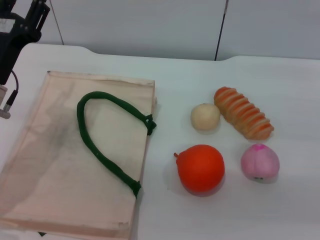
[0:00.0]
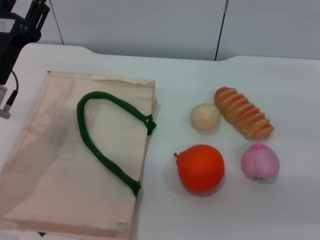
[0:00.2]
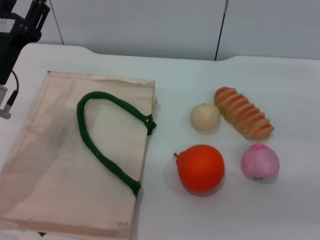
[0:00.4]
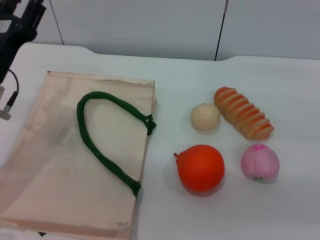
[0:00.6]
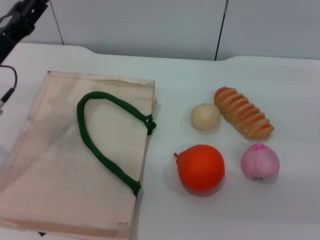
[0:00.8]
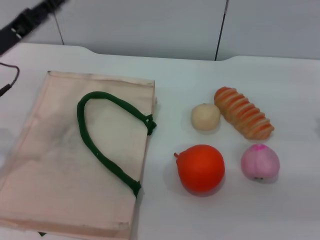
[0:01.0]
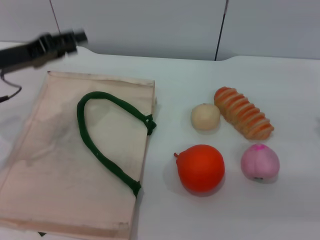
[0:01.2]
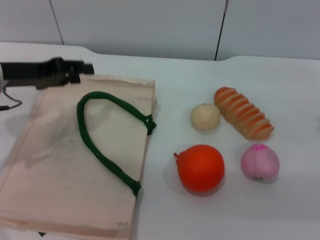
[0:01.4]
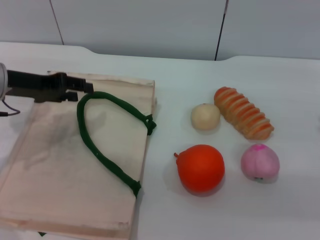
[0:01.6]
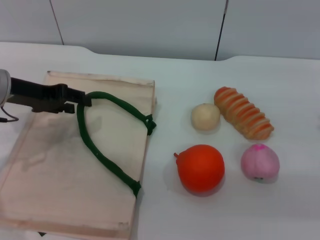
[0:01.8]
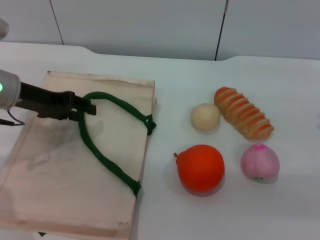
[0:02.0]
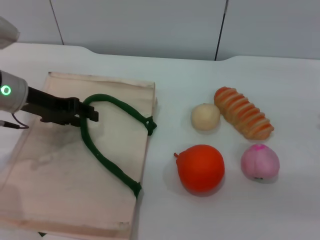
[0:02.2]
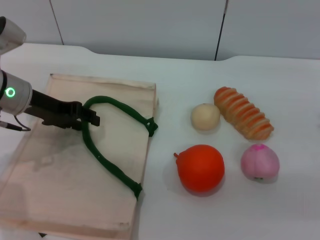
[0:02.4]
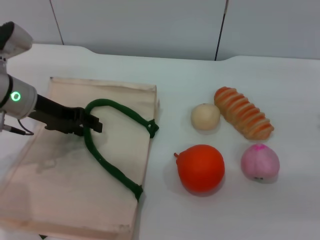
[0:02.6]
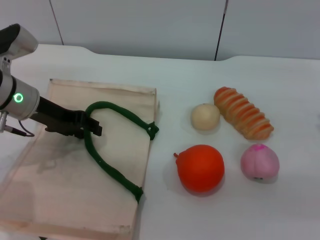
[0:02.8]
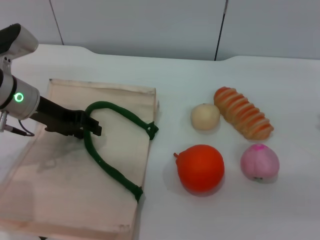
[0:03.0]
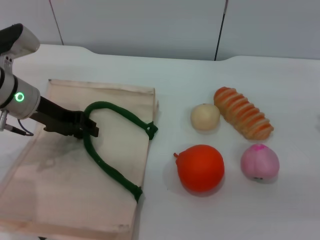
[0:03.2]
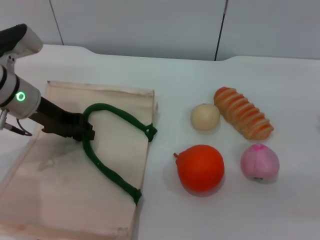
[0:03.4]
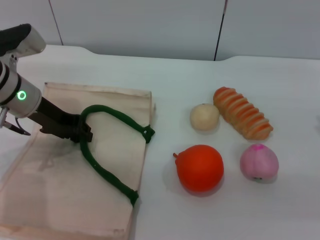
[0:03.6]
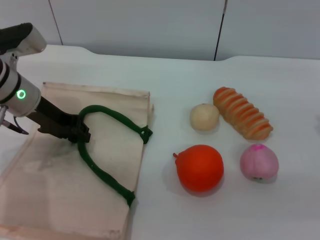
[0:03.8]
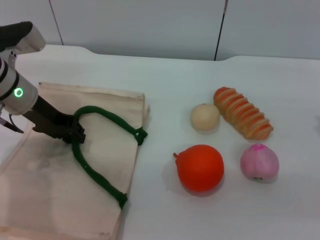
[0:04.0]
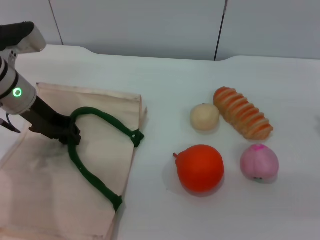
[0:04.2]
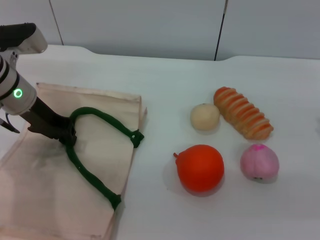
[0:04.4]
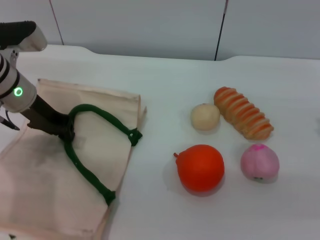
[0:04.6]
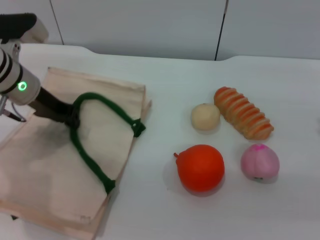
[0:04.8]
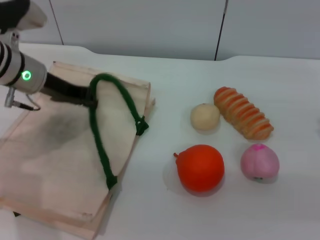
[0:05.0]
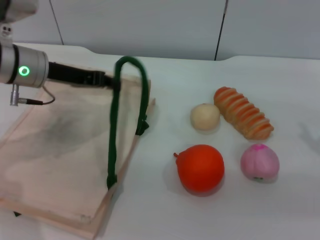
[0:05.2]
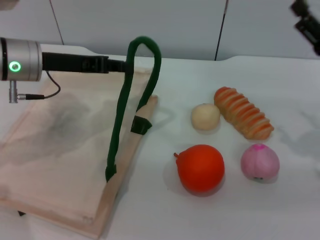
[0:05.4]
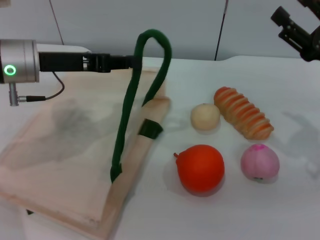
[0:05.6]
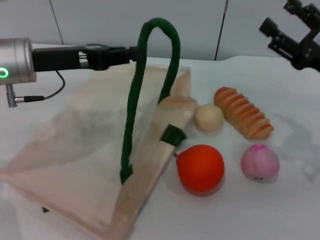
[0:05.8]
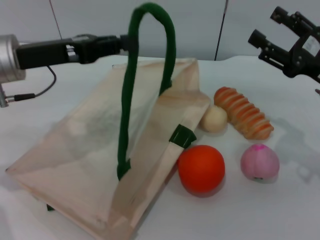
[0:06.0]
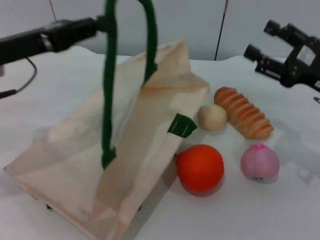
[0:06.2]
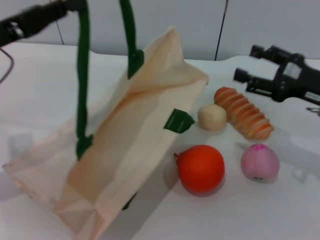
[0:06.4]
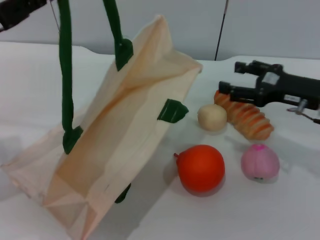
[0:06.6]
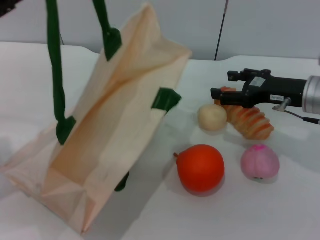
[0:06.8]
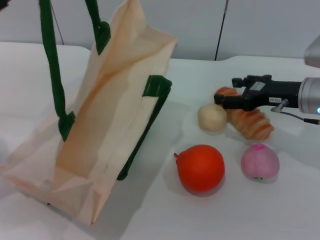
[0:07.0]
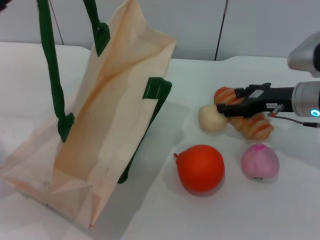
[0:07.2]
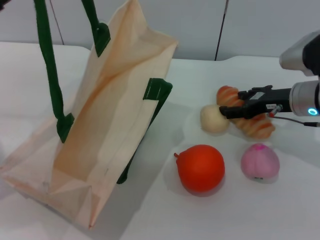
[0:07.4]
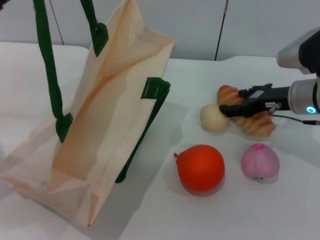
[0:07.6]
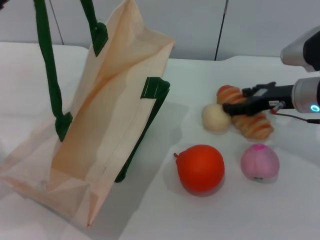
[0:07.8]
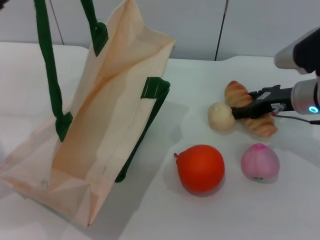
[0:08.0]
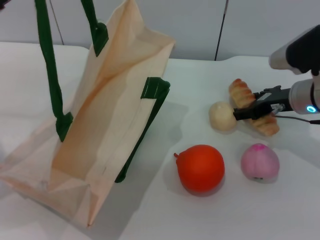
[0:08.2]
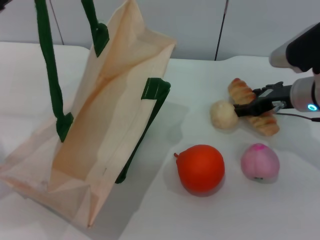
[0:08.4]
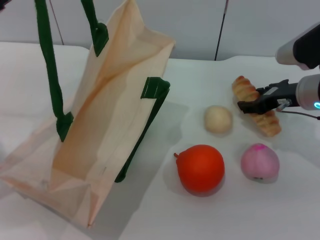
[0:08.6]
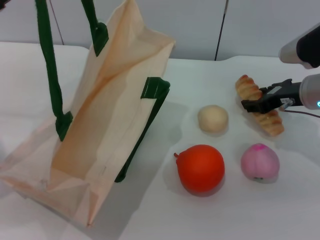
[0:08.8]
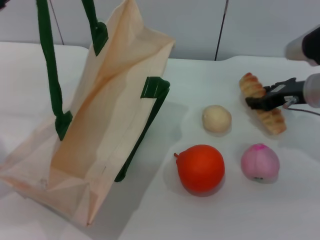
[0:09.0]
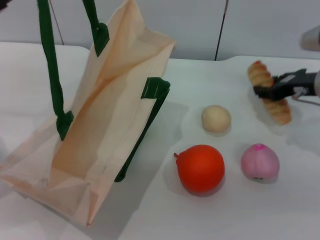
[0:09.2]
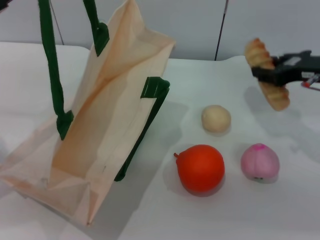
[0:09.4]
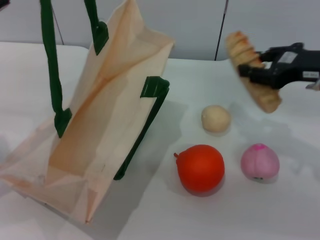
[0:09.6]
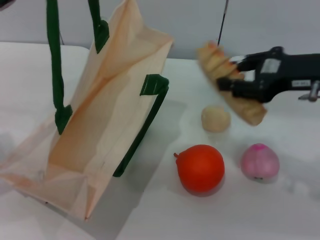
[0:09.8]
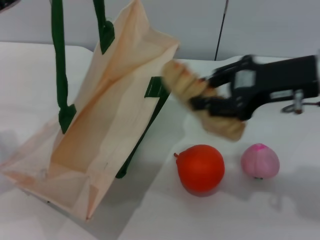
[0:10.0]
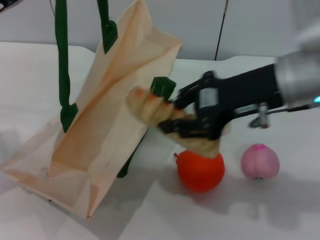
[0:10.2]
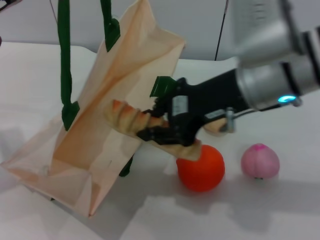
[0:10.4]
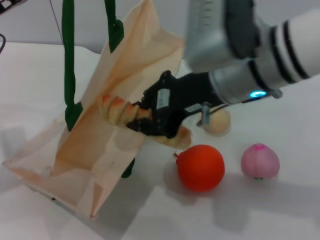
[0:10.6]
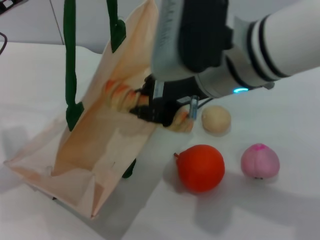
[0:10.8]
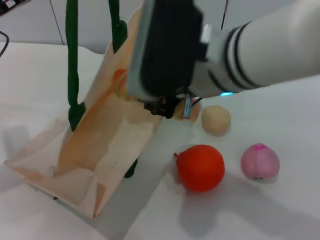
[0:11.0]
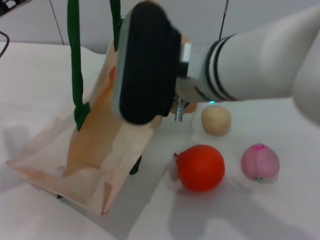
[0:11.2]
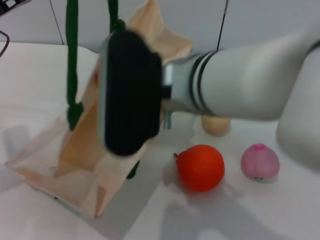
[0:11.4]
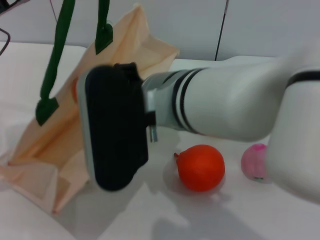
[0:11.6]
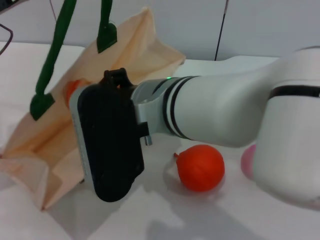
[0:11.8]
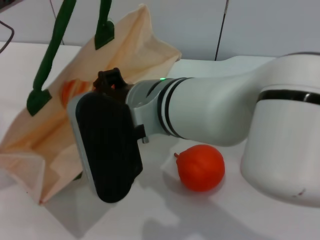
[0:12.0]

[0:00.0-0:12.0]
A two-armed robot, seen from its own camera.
Task of the whole recording: pick up the bread and egg yolk pastry from the table and place it in the white handbag.
Step, 0:00.0 to 0:04.8: Lift the woven bag with the left gripper to open it.
Step, 0:05.0 to 0:09.4: Pick up the bread with the right gripper.
0:00.0 to 0:01.6: The left gripper moves forward, some 5 cm.
0:03.0 to 0:04.4: The left gripper closes its fingers.
0:04.4 to 0:06.0: The left gripper shifts by approximately 5 cm.
0:06.0 to 0:07.6: The left gripper is displaced to the left by roughly 10 cm. Meanwhile the right gripper travels forward by roughly 5 cm.
0:07.6 to 0:09.0: The grippers make only small movements.
0:09.0 to 0:10.4: The right gripper travels to the left, upward and backward by roughly 20 cm, and closes.
0:10.4 to 0:12.0: The right gripper is displaced to the left by about 10 cm.

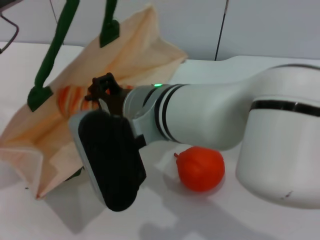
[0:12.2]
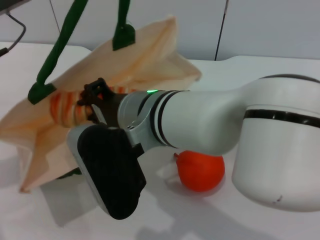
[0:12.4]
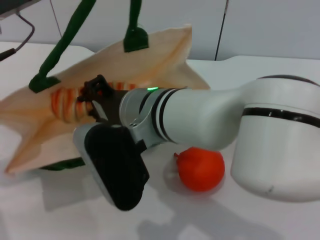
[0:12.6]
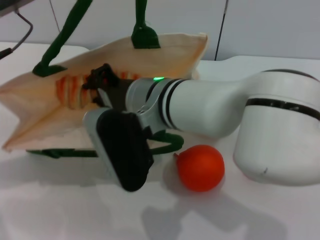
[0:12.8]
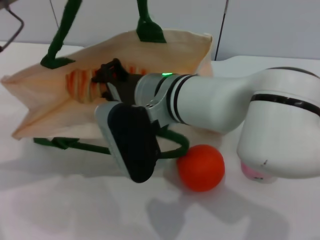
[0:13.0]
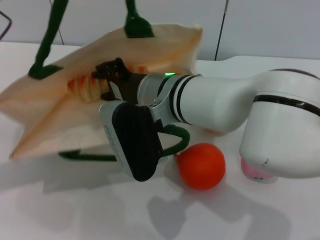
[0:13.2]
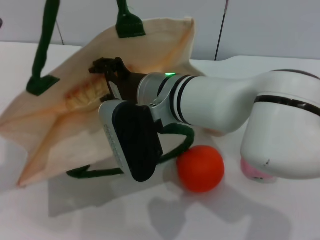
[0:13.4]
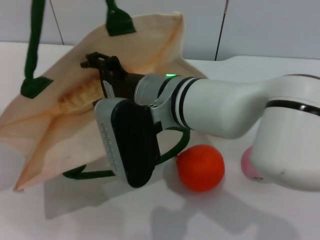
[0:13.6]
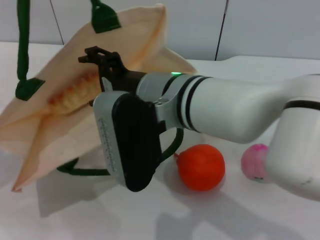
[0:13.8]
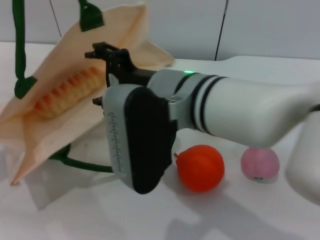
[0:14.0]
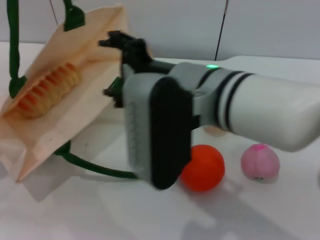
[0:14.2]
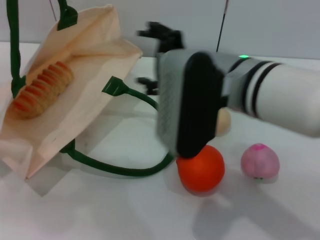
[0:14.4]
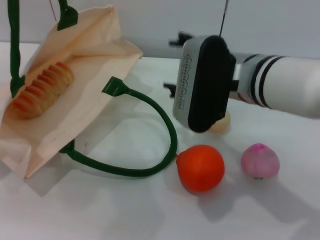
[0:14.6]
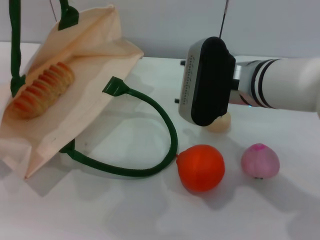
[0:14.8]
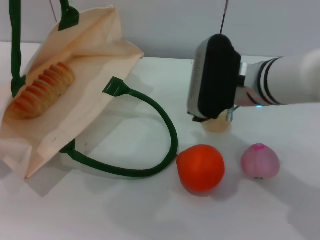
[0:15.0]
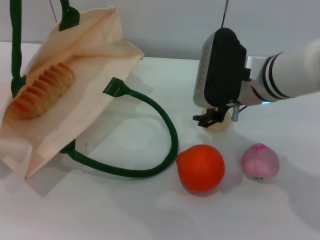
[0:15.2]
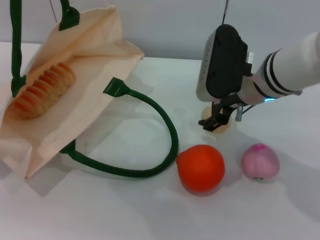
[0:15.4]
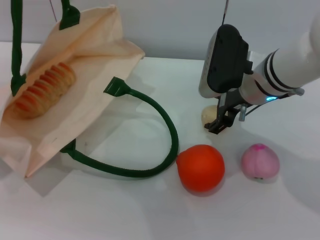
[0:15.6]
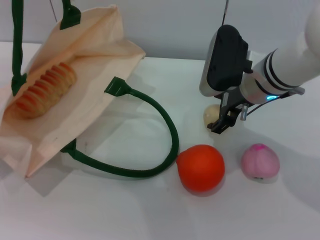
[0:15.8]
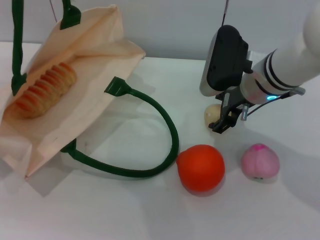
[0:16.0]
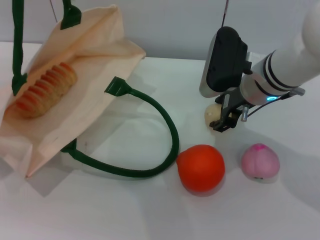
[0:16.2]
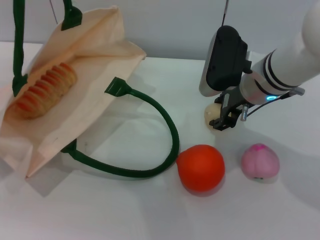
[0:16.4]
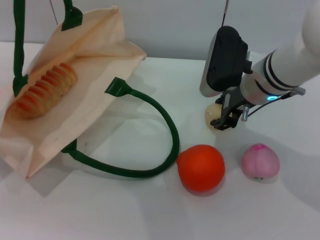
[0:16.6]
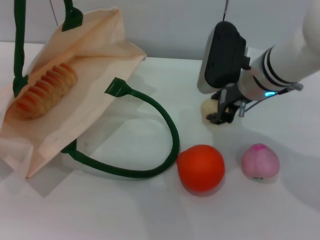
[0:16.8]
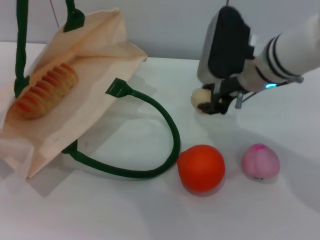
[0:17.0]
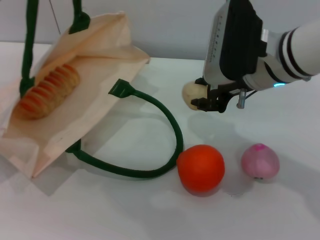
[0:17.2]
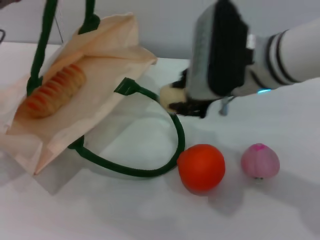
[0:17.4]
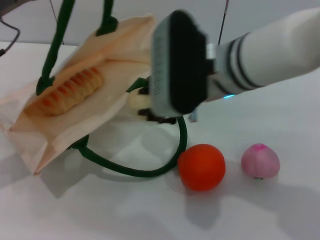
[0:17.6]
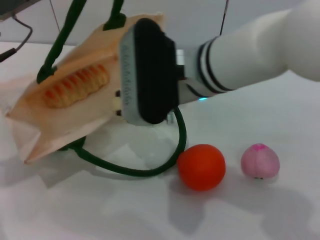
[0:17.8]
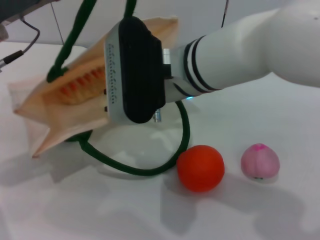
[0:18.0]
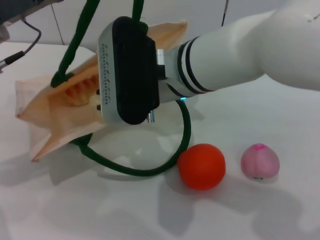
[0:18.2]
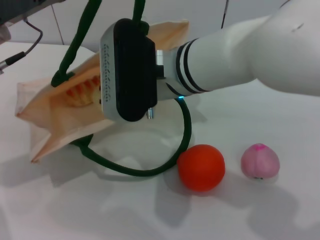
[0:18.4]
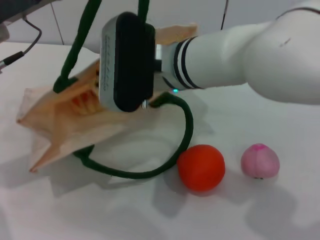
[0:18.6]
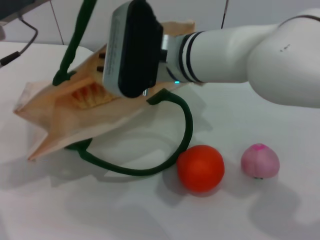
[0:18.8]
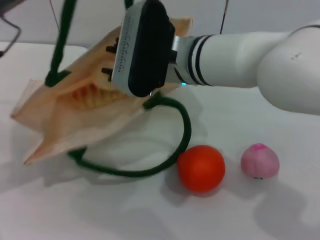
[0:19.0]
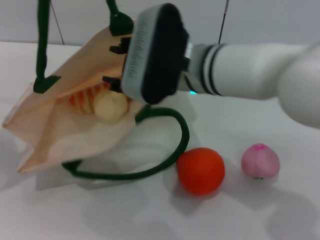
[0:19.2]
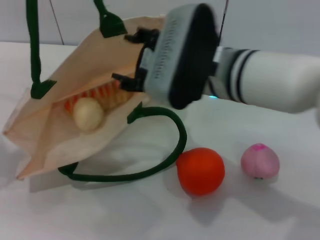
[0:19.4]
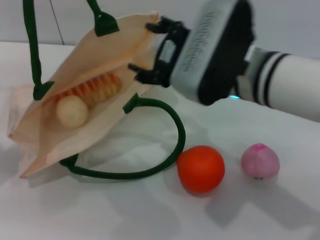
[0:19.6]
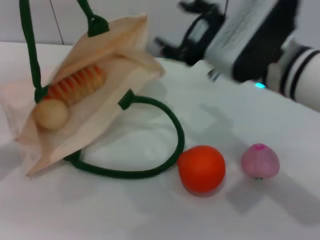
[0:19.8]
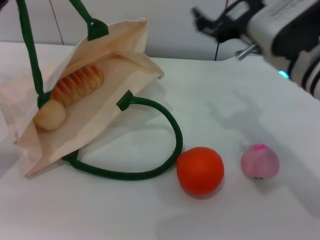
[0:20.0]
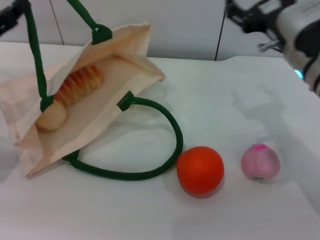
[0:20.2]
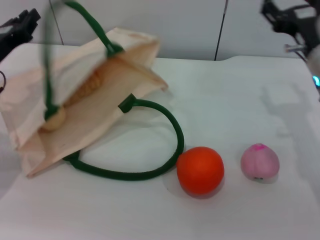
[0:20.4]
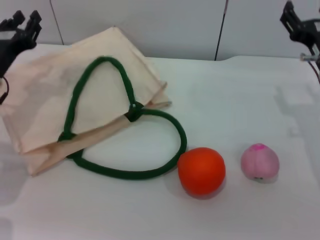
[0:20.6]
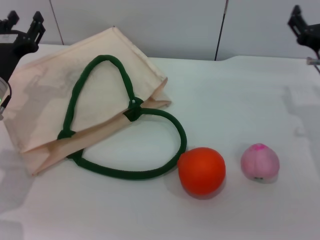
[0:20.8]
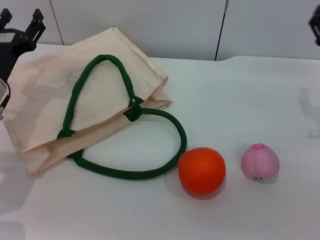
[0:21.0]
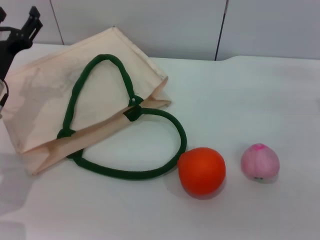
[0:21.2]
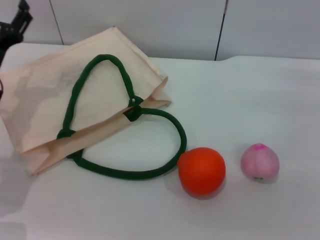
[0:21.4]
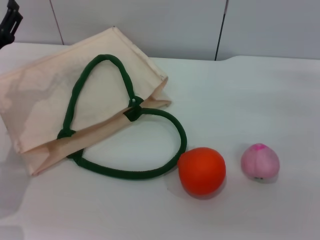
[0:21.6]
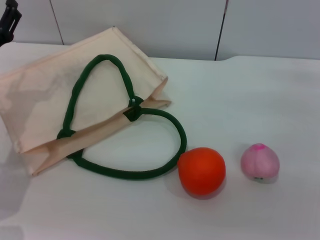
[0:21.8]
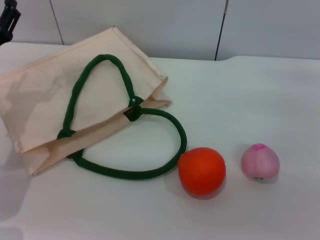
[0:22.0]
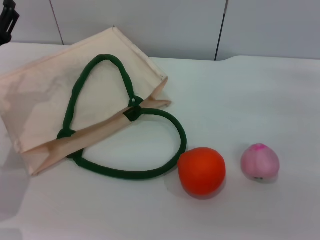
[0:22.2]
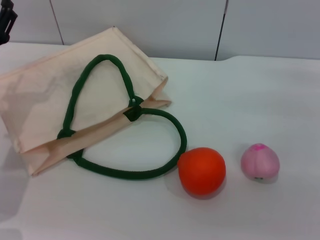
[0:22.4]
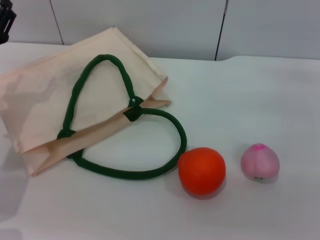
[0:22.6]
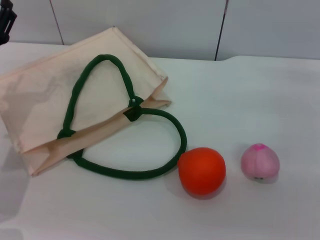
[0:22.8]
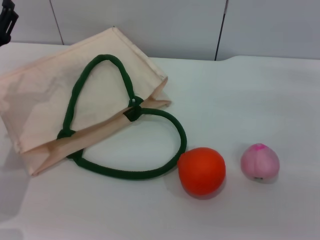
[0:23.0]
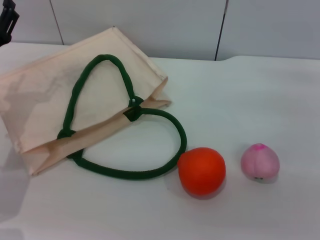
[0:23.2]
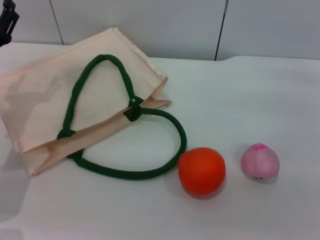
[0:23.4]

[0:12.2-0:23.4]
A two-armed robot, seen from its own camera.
Task of the whole recording: pick up the bread and egg yolk pastry from the table and place it in the white handbag.
Step, 0:12.2 to 0:14.2: Place the bread into the woven bag with the right gripper.
Step, 0:14.6 to 0:17.2: Pick up the egg yolk pastry with the right gripper.
Step, 0:17.4 to 0:19.6: Place the egg yolk pastry into the woven bag with the right gripper.
Step, 0:20.0 to 0:20.6: Lower the woven bag with the left gripper to close it.
0:12.2 to 0:13.8: The right gripper opens up.
0:13.8 to 0:15.4: The right gripper is displaced to the right and forward by approximately 15 cm.
0:15.4 to 0:17.0: The right gripper closes.
0:17.0 to 0:18.6: The right gripper travels to the left by some 10 cm, and closes up. The left gripper moves to the right, approximately 10 cm.
0:18.6 to 0:20.2: The right gripper is displaced to the right by some 15 cm, and opens its fingers. The left gripper goes about 10 cm downward and to the left.
0:20.2 to 0:21.8: The right gripper travels to the right and downward by some 15 cm, while the left gripper ends up some 5 cm from where it was, and opens.
0:21.8 to 0:23.4: Both grippers stay put.
